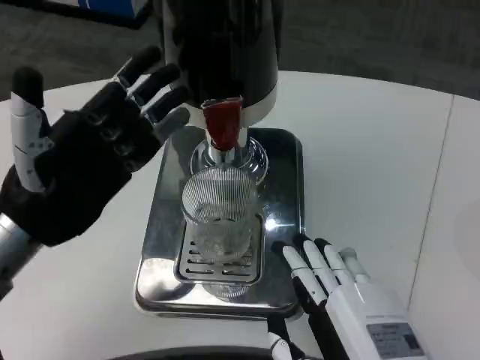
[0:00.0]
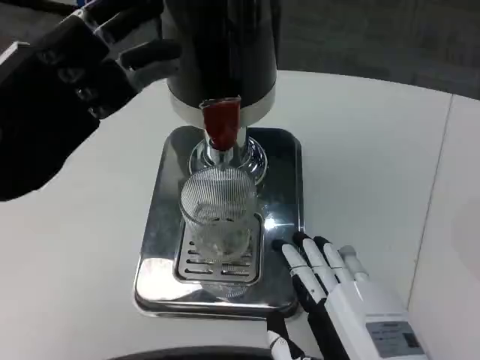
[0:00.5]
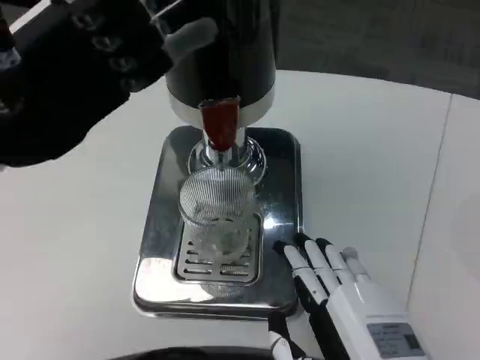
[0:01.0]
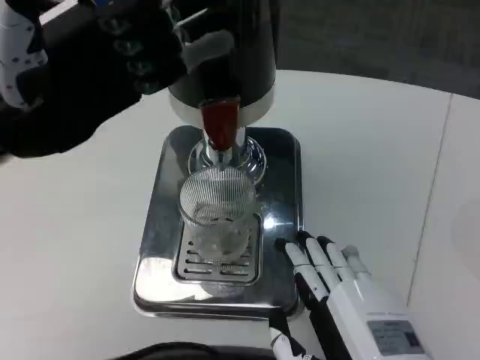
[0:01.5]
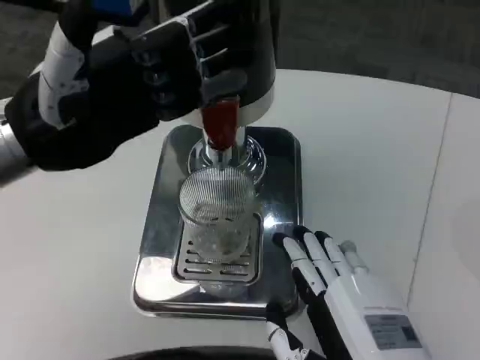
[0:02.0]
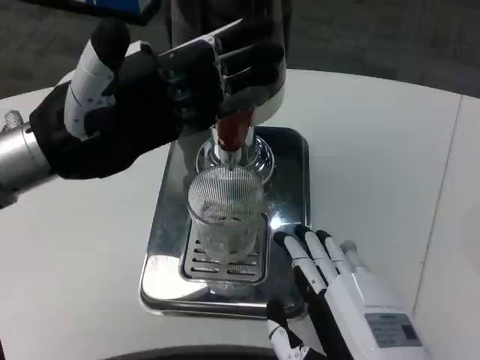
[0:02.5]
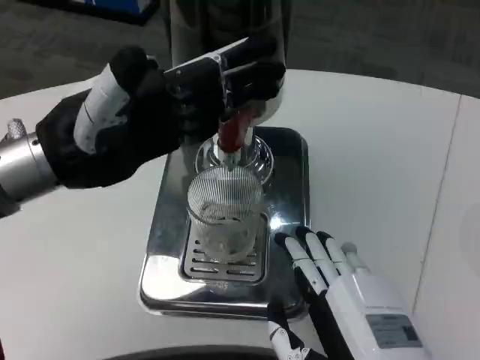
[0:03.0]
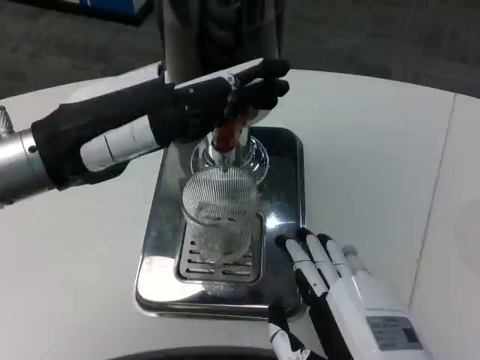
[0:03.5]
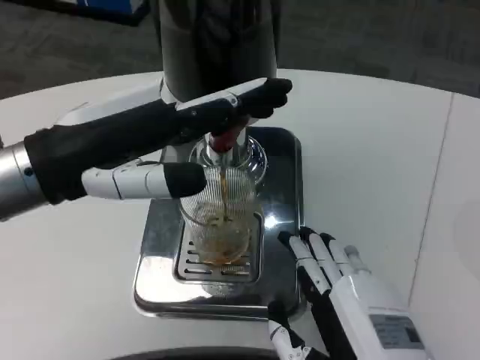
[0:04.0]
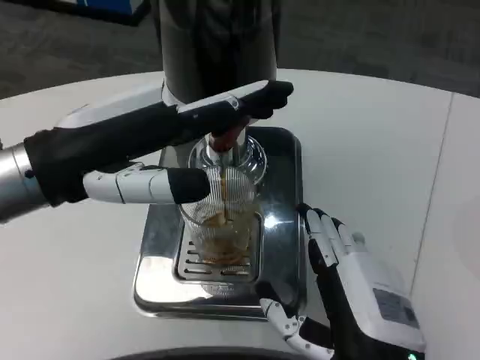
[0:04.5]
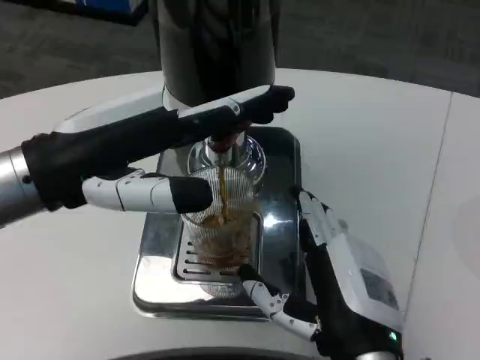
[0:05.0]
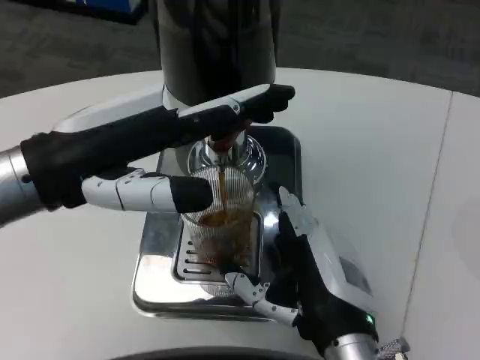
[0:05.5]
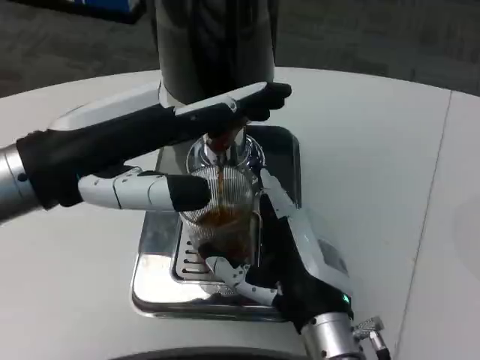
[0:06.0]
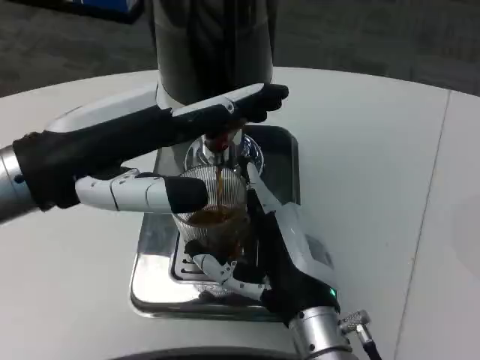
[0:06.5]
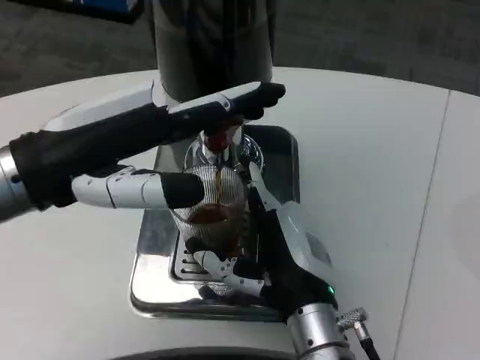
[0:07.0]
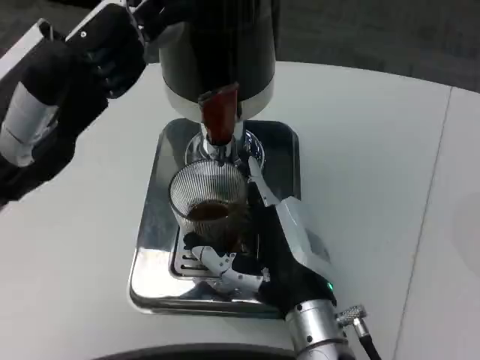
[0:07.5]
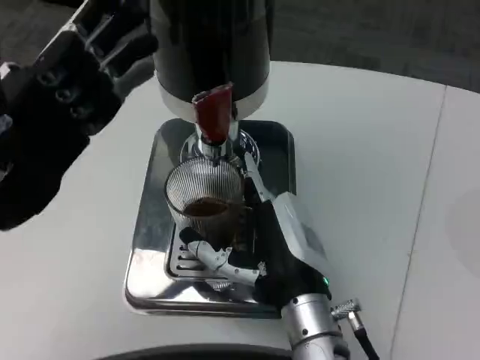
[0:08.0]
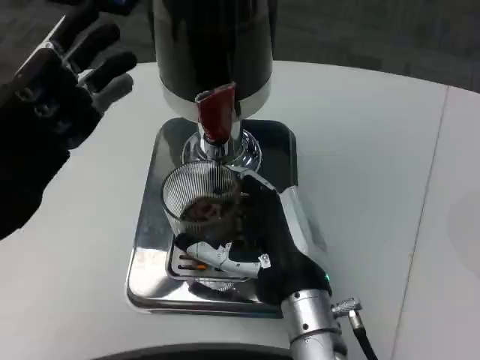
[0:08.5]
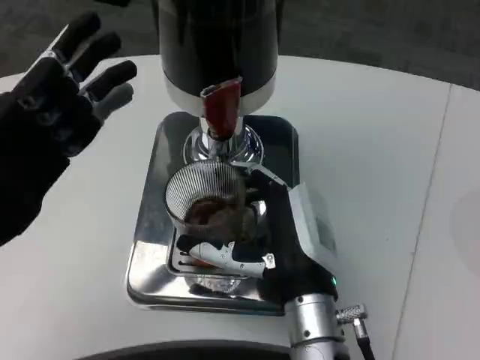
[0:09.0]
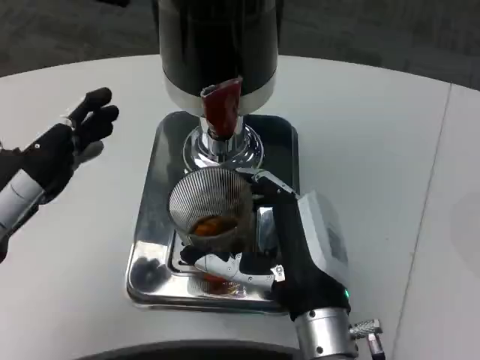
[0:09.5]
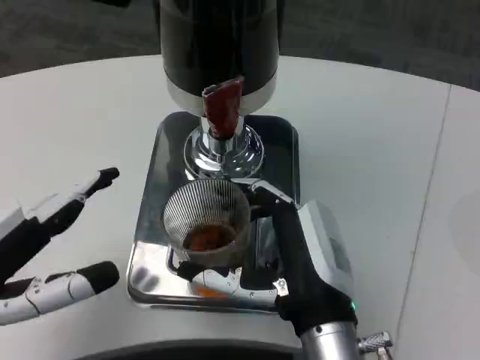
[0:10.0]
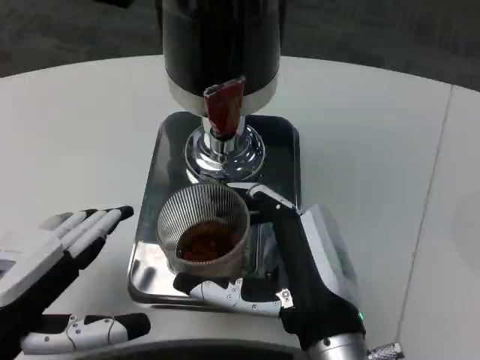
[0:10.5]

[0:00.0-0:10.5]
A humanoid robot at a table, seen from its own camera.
Task of the whole recording: Grasp the cup under the faucet to collect the drink, then remove the cup.
0:00.0 to 0:02.0: The left hand travels upward by roughly 10 cm.
0:04.0 to 0:06.5: The right hand heads forward and to the left, covering about 10 cm.
0:06.5 to 0:08.5: The left hand shifts about 5 cm downward.
0:08.5 to 0:10.5: The two hands go approximately 5 cm backward.

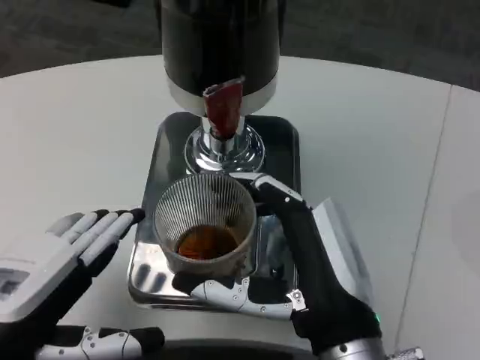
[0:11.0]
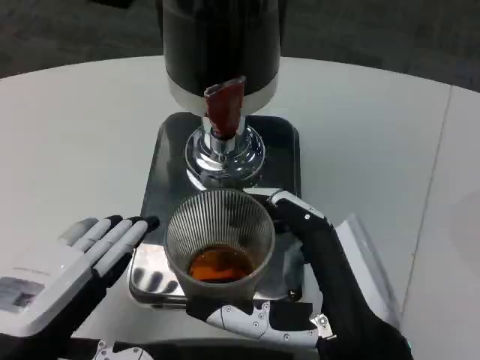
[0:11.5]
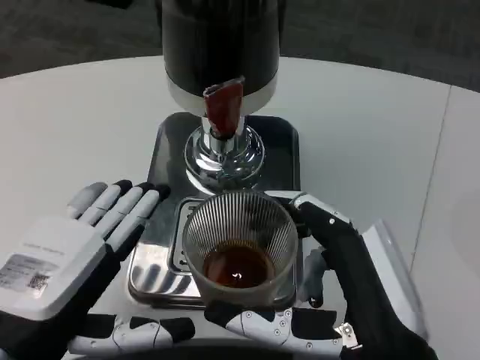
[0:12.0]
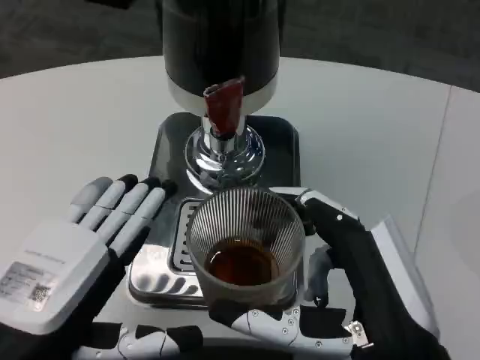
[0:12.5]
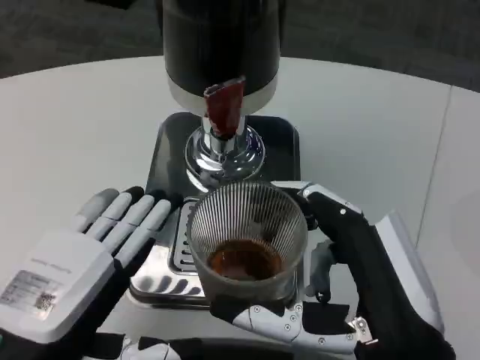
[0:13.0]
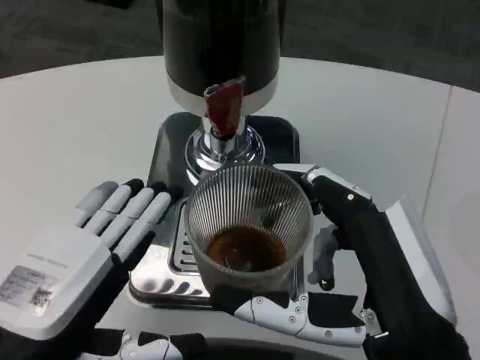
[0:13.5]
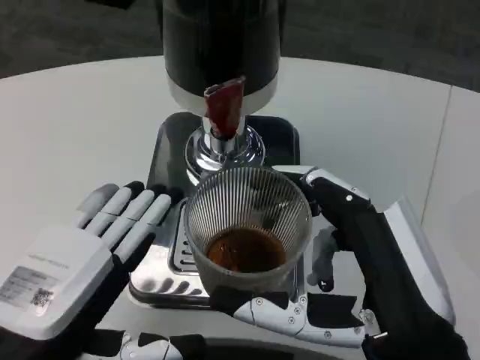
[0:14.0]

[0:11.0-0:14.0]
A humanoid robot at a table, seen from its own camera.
Task of the whole recording: Grasp the cup under the faucet to collect the drink, then remove the cup.
0:11.0 to 0:12.5: The right hand moves about 5 cm.

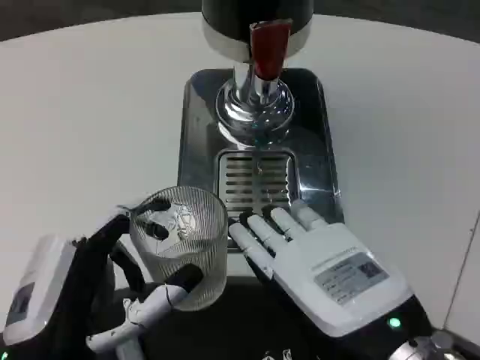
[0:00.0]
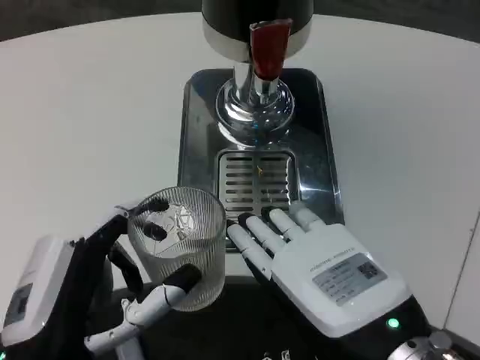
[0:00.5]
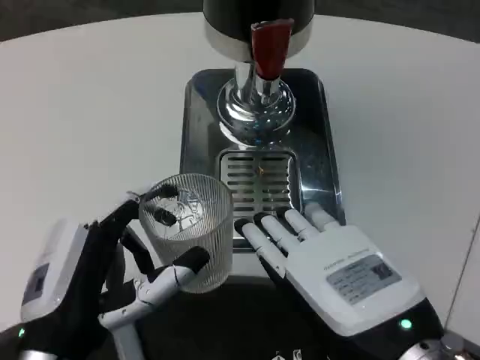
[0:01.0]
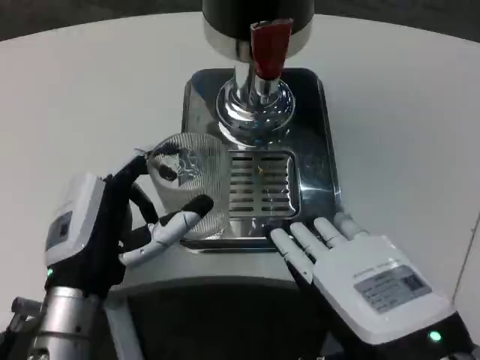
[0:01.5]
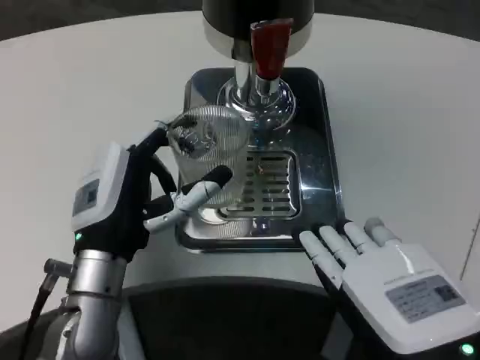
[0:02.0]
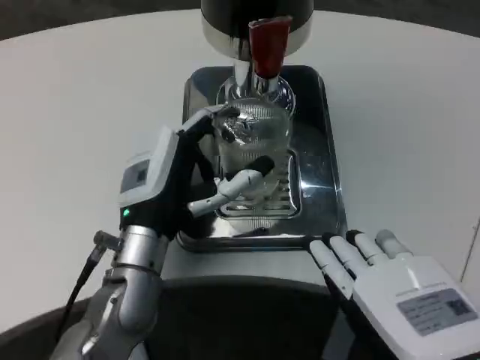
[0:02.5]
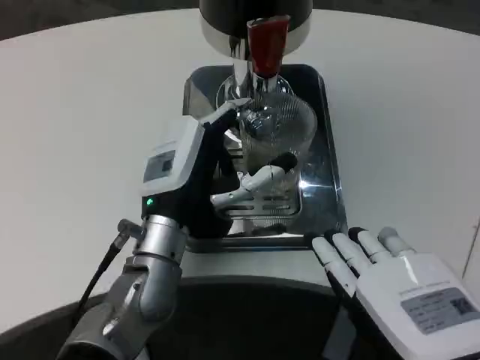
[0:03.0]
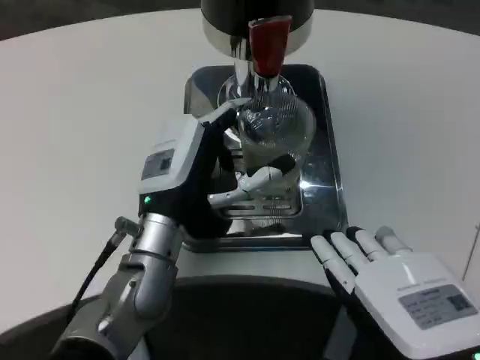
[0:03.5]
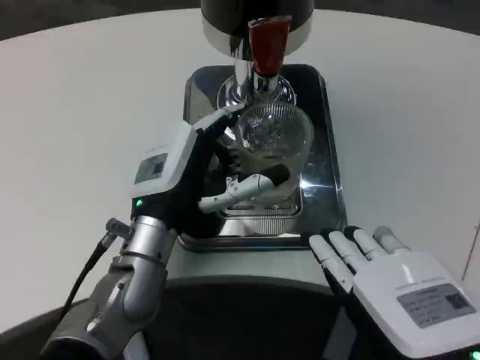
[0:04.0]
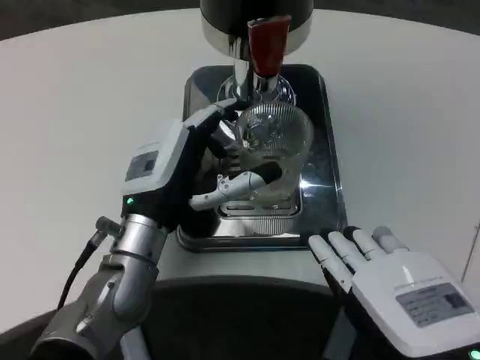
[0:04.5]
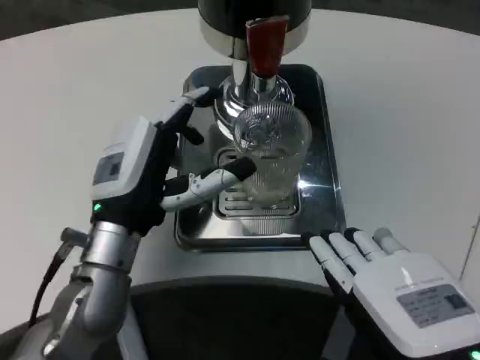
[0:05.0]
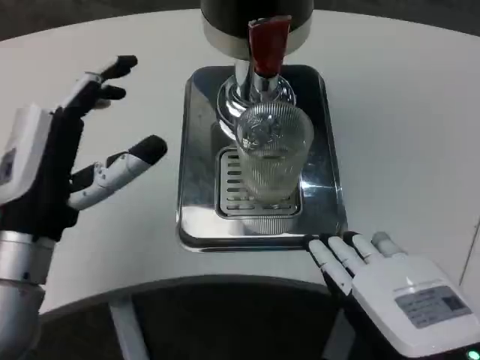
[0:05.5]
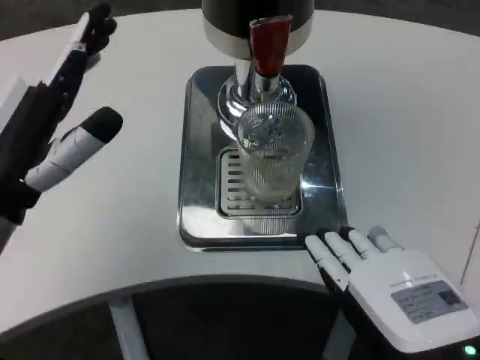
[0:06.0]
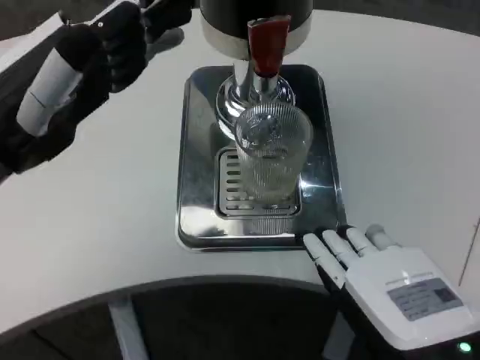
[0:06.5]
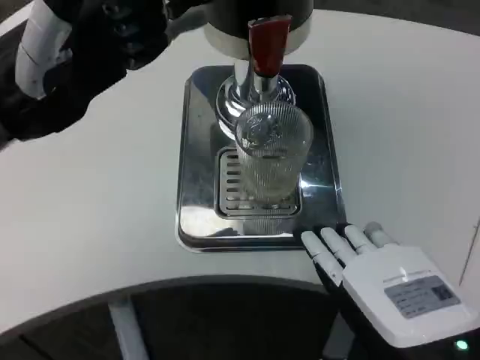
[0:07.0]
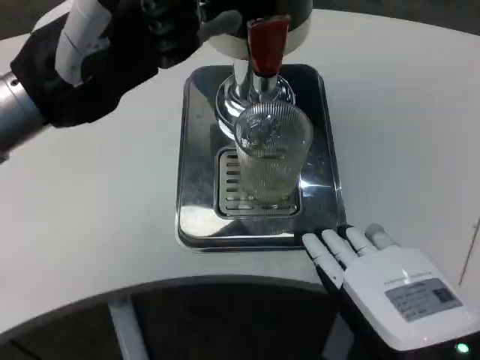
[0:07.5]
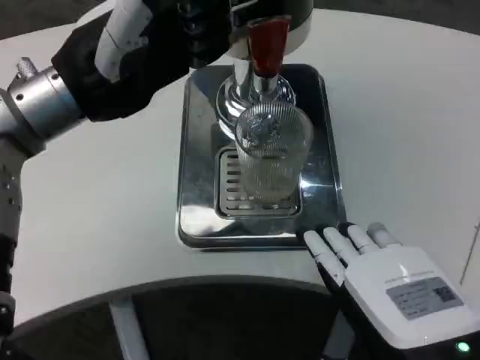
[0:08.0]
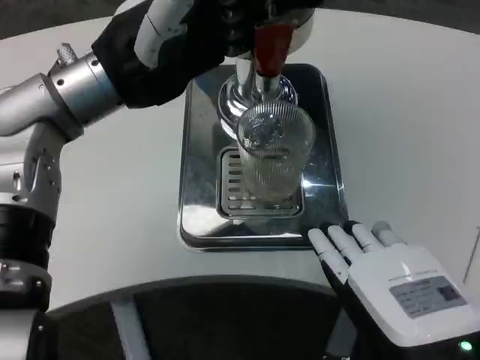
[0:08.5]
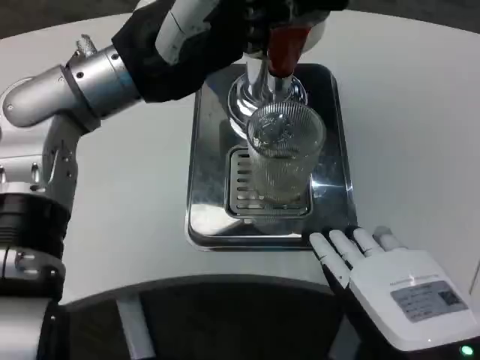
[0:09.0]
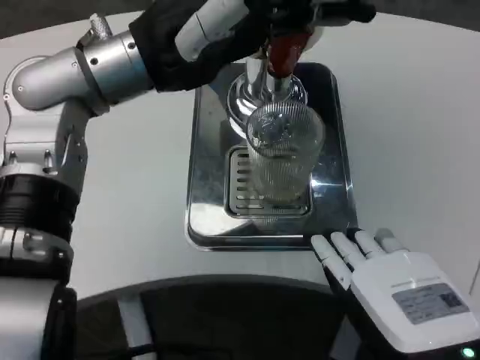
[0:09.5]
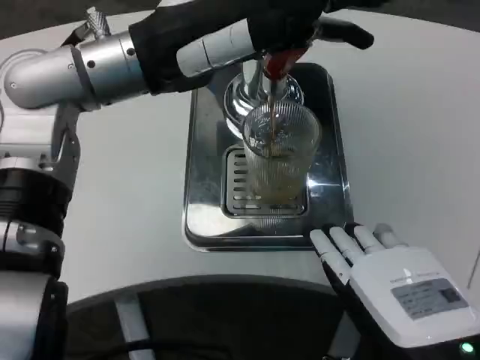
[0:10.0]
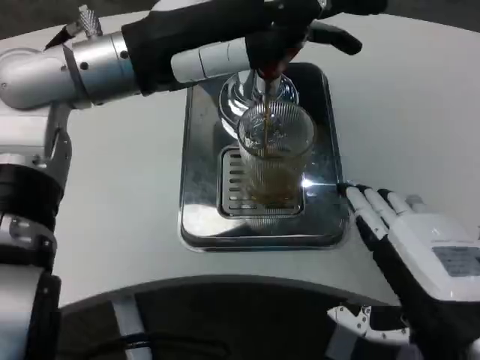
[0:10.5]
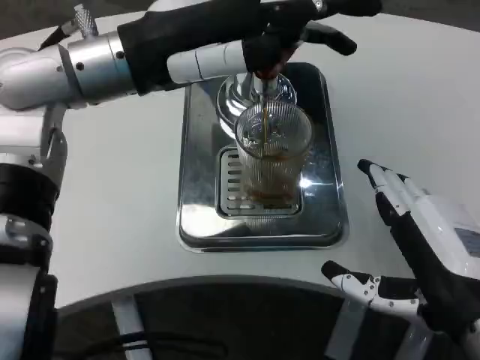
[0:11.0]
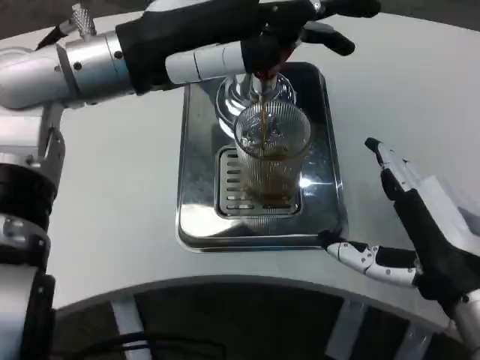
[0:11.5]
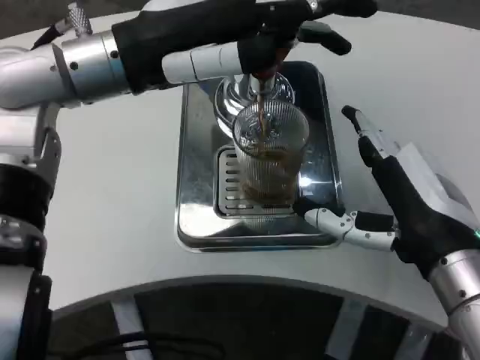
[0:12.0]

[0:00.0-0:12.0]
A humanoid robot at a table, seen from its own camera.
Task of the whole recording: Grasp the cup under the faucet to collect the drink, then remove the cup.
0:00.0 to 0:02.0: The left hand heads forward, covering approximately 15 cm.
0:02.0 to 0:04.0: The left hand shifts by approximately 5 cm.
0:04.0 to 0:06.0: The left hand is displaced to the left, upward and backward by roughly 15 cm.
0:06.0 to 0:08.0: The left hand is displaced upward and forward by about 10 cm.
0:08.0 to 0:10.0: The left hand moves roughly 5 cm.
0:10.0 to 0:12.0: The right hand shifts approximately 10 cm forward.
